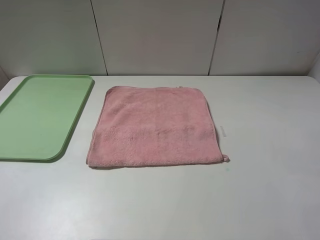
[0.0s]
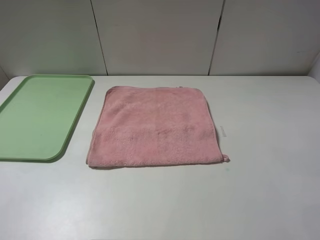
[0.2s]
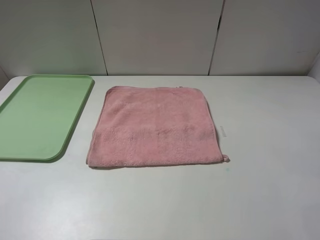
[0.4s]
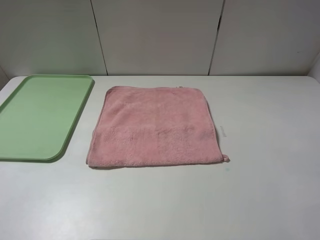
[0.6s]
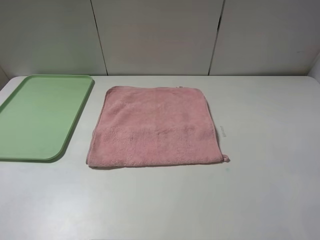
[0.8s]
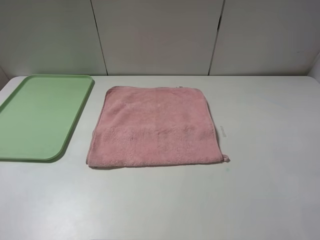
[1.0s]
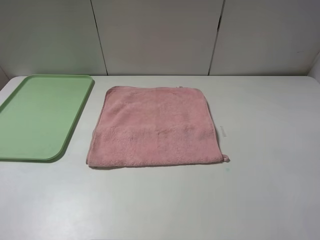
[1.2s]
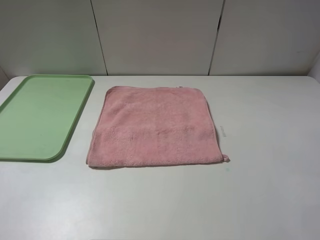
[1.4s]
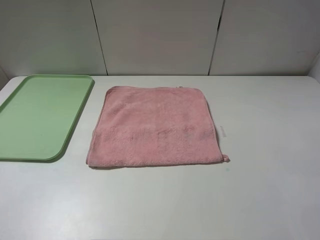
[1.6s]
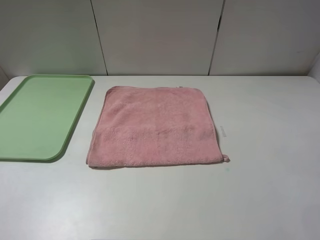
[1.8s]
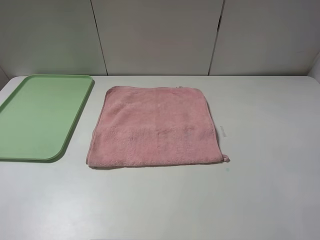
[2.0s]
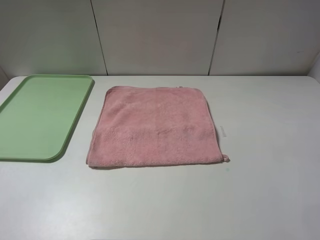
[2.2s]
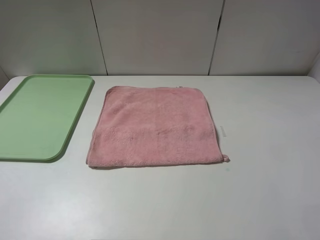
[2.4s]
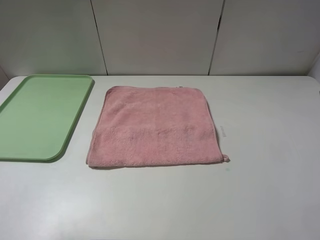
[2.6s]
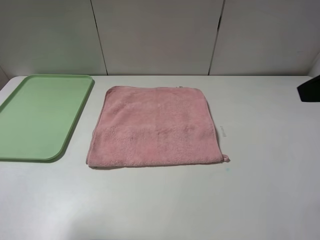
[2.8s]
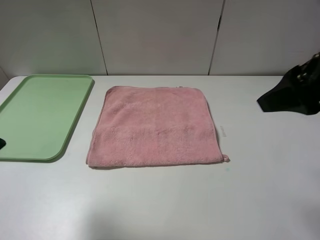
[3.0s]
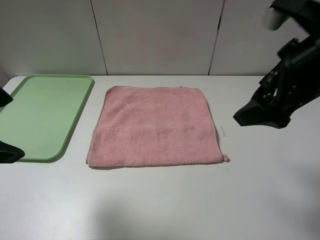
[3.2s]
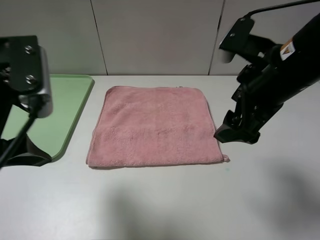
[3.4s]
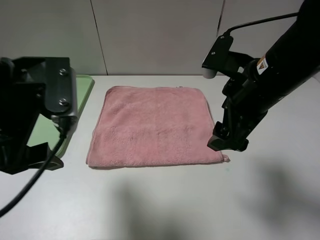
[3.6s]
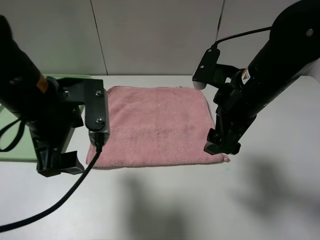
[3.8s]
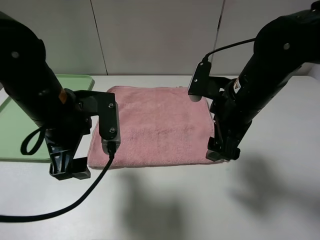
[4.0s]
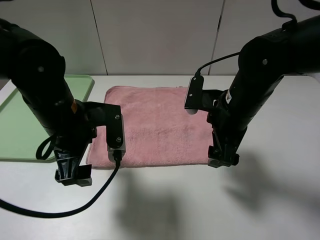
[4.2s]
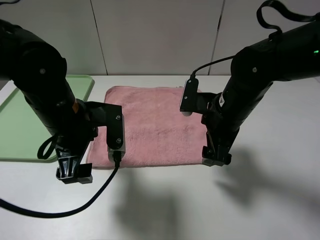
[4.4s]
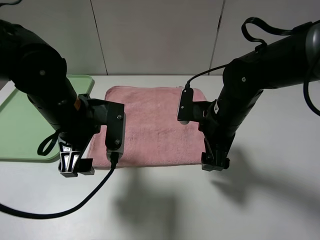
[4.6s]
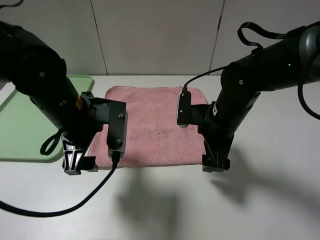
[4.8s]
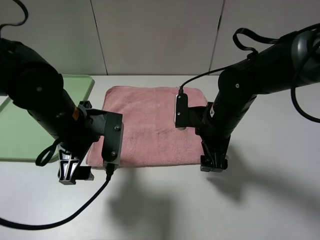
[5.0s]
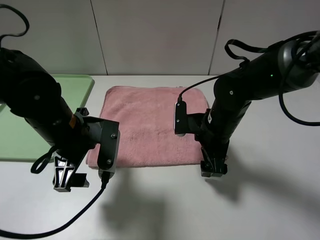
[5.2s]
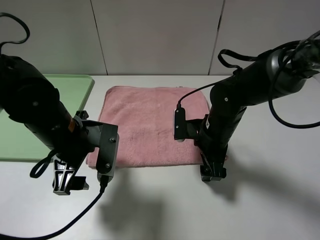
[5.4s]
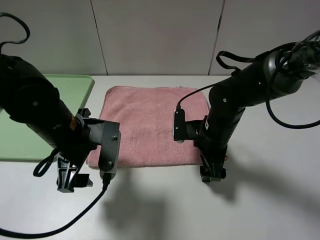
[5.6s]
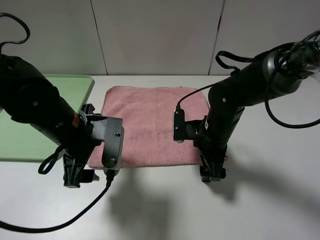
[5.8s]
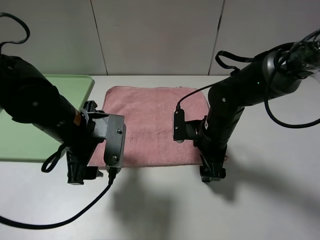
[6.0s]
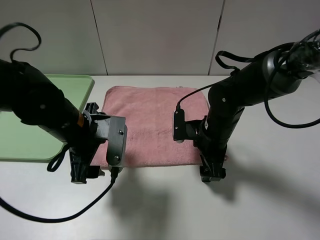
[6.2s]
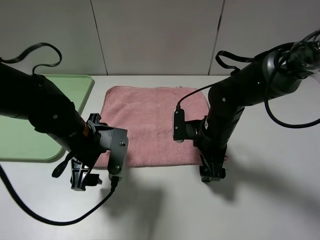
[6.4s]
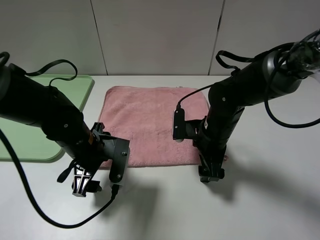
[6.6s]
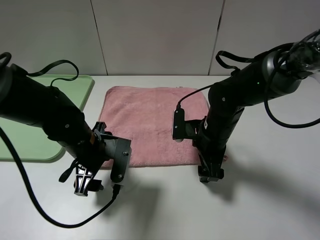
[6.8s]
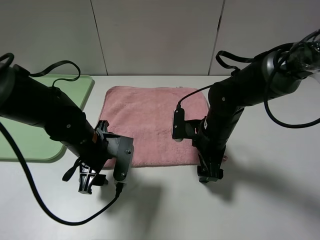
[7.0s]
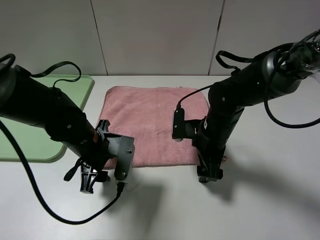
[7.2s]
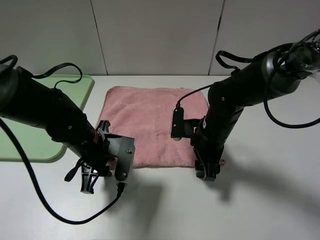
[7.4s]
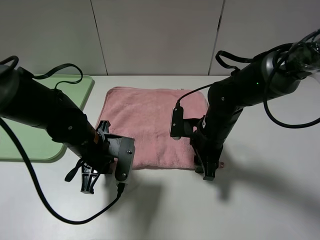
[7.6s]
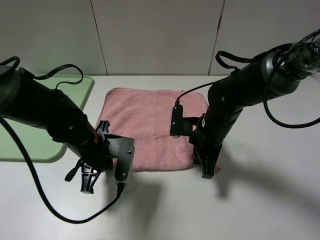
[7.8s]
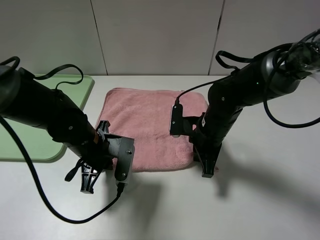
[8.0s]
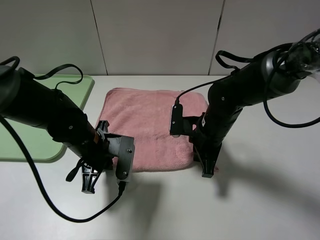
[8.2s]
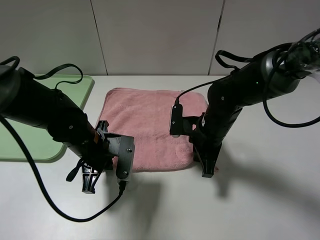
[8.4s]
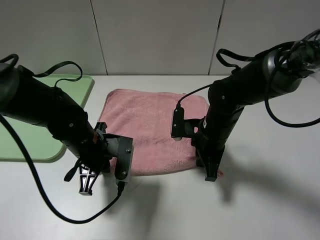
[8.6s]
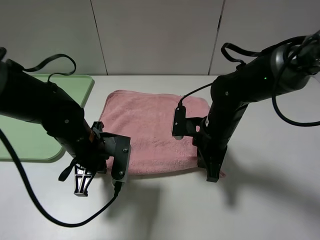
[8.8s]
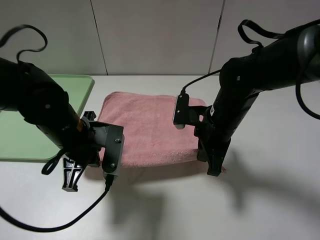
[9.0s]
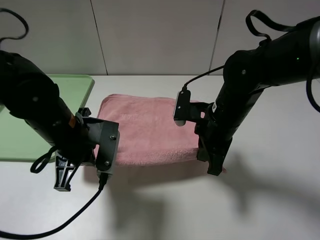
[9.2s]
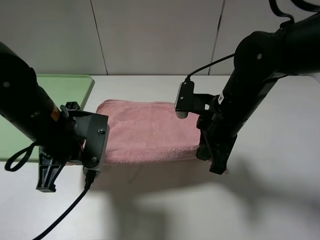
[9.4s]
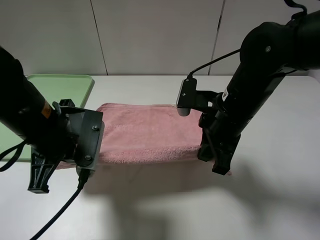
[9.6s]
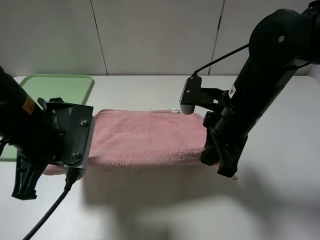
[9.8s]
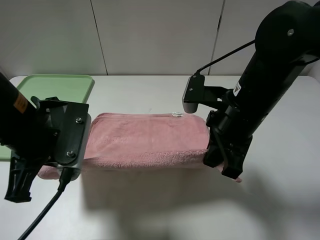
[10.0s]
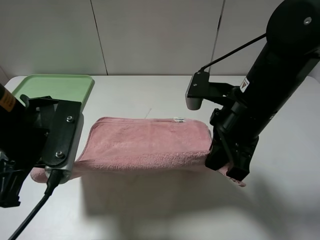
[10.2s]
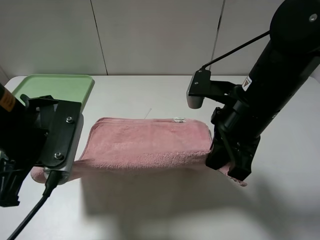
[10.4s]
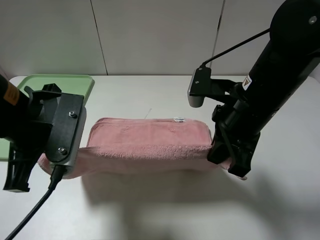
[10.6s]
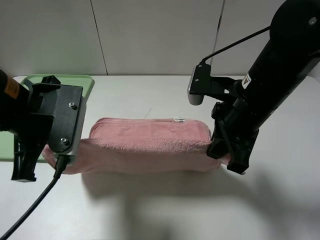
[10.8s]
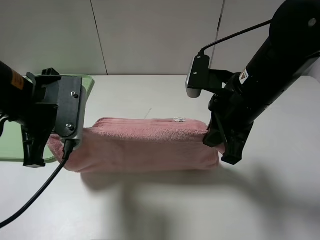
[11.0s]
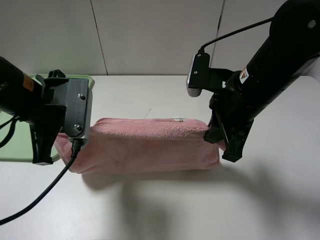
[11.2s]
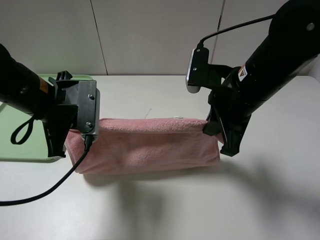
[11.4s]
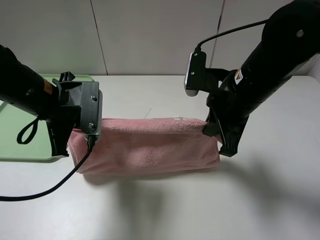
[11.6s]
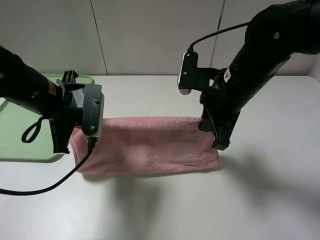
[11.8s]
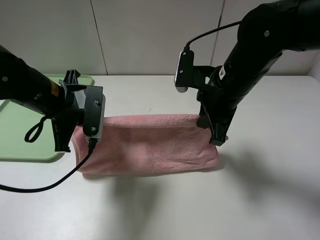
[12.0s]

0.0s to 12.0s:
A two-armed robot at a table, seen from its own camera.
0.0s to 1.6s: Both grippers stay about where they are.
1.6s to 3.0s: The left gripper heads forward, to the right and upward, covering about 15 cm. The right gripper is displaced forward by roughly 20 cm.
3.0s to 4.4s: The right gripper heads downward, to the left and forward, covering roughly 20 cm. The left gripper travels downward, to the right and forward by approximately 20 cm.
4.4s to 6.0s: The right gripper shifts approximately 5 cm downward.
6.0s to 7.6s: The right gripper closes up, while the left gripper travels downward by some 5 cm, and closes.
7.6s to 9.0s: Both grippers travel together upward, roughly 5 cm. The right gripper closes.
9.0s to 10.4s: Both grippers travel together upward and backward, some 10 cm.
10.4s to 12.0s: Both grippers travel together forward, some 10 cm.

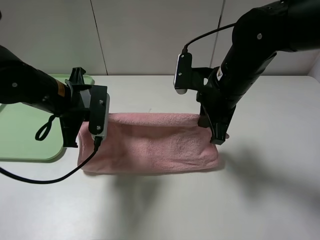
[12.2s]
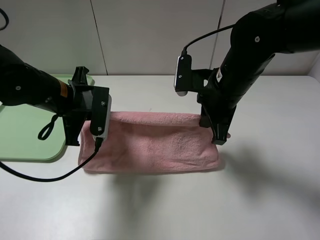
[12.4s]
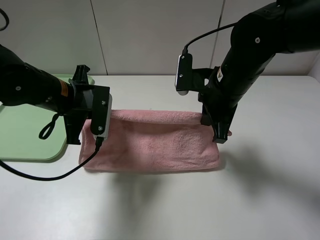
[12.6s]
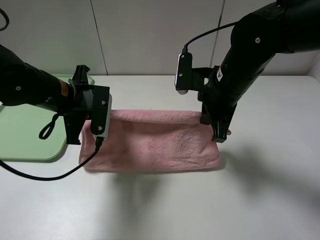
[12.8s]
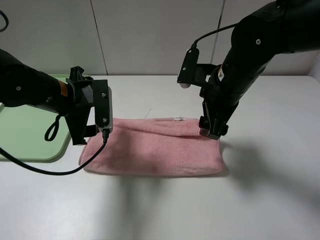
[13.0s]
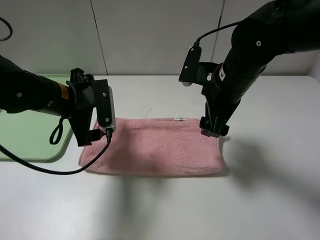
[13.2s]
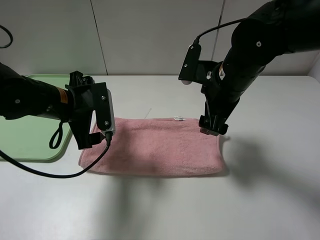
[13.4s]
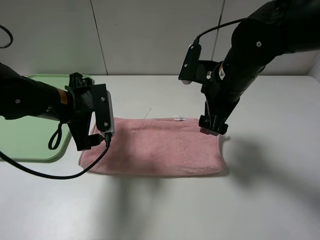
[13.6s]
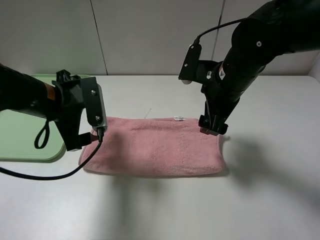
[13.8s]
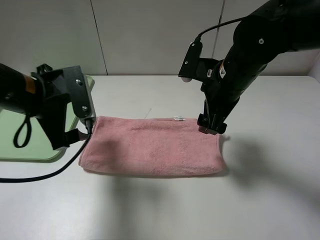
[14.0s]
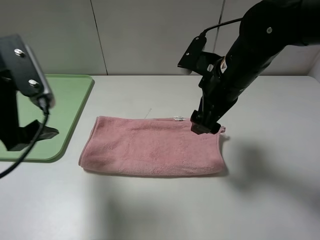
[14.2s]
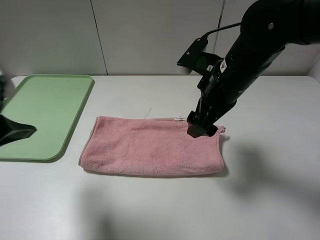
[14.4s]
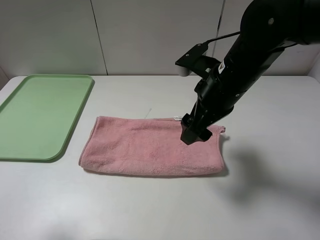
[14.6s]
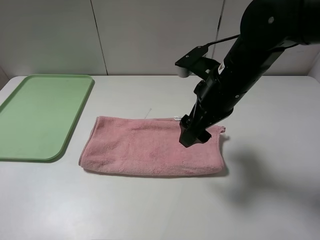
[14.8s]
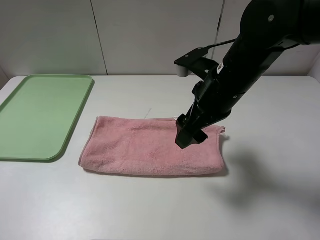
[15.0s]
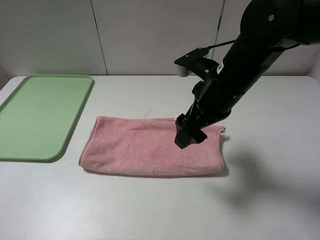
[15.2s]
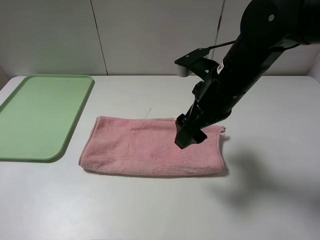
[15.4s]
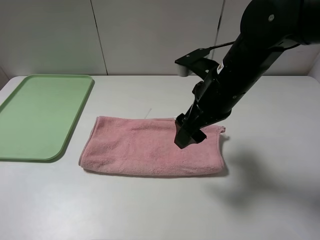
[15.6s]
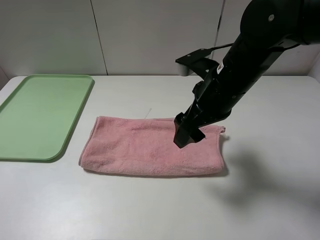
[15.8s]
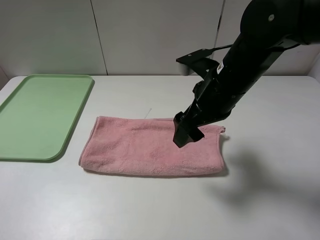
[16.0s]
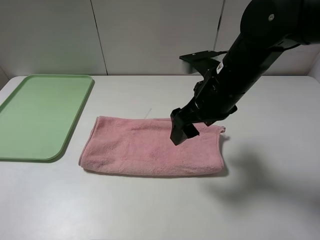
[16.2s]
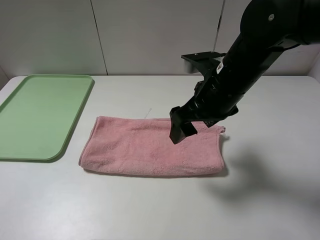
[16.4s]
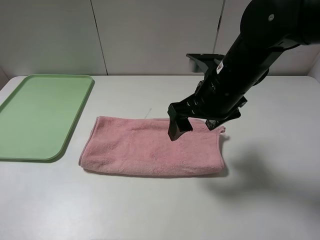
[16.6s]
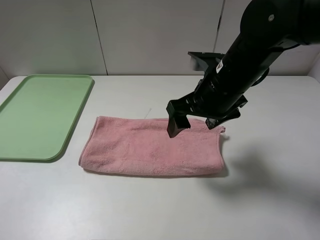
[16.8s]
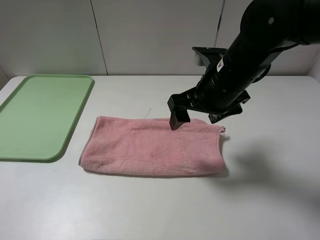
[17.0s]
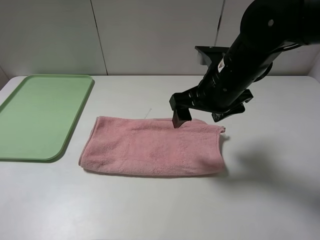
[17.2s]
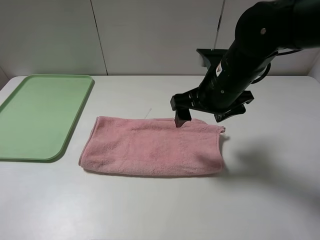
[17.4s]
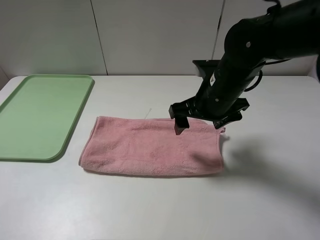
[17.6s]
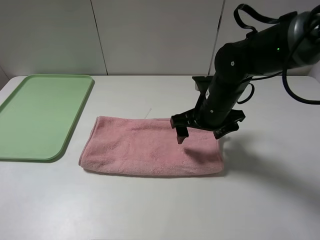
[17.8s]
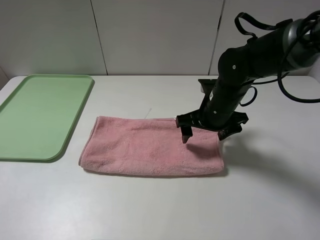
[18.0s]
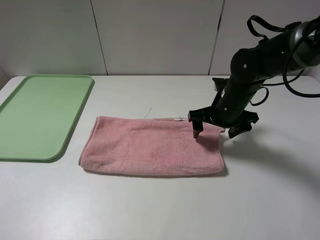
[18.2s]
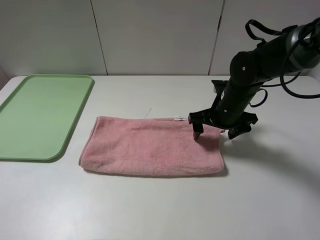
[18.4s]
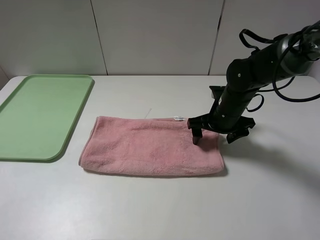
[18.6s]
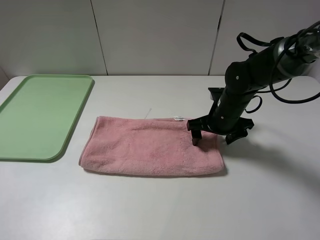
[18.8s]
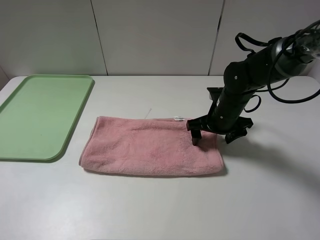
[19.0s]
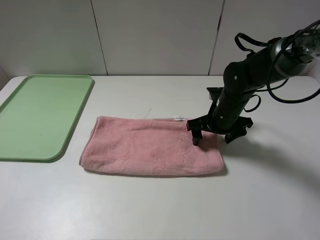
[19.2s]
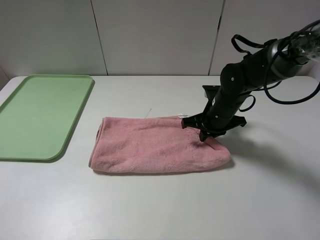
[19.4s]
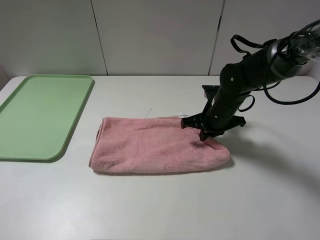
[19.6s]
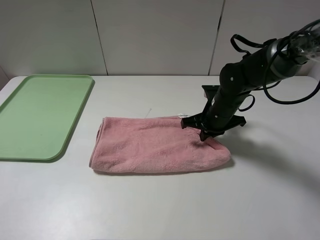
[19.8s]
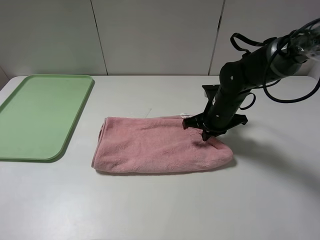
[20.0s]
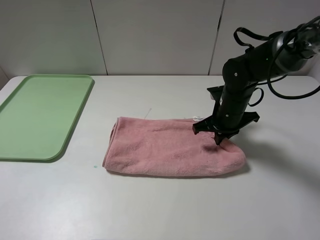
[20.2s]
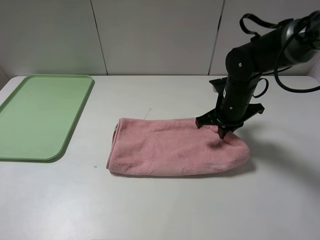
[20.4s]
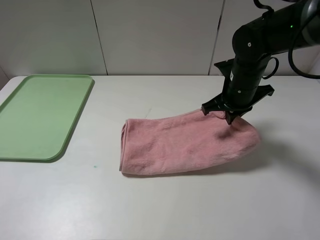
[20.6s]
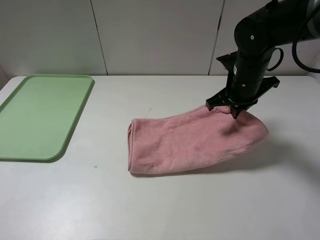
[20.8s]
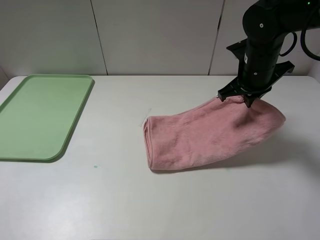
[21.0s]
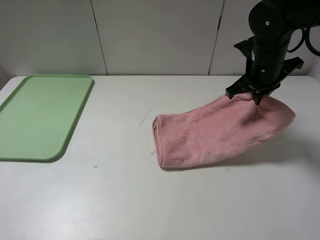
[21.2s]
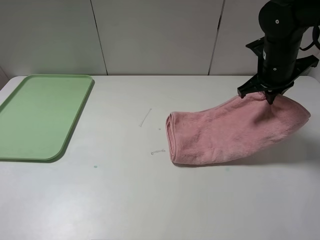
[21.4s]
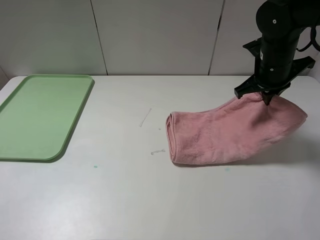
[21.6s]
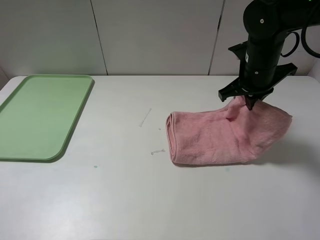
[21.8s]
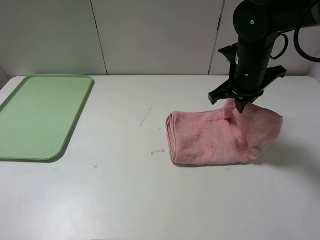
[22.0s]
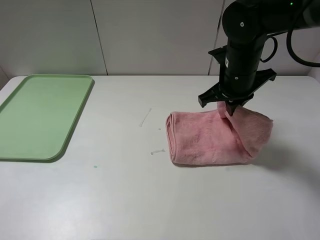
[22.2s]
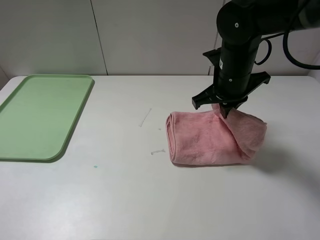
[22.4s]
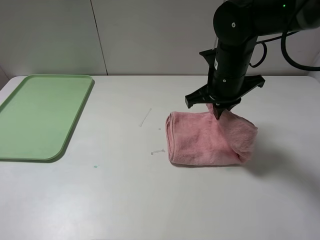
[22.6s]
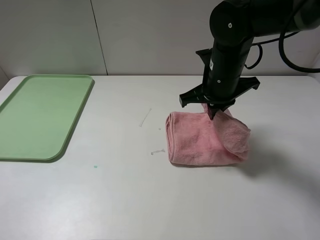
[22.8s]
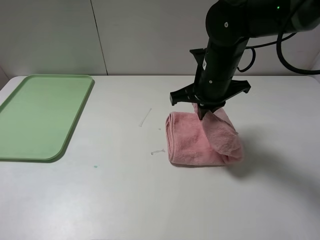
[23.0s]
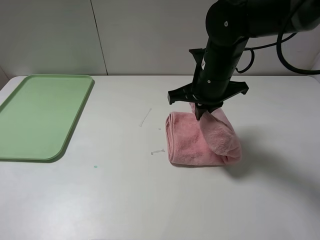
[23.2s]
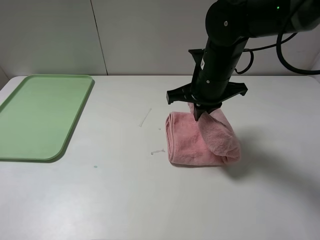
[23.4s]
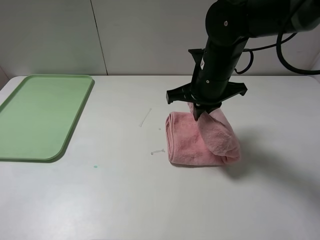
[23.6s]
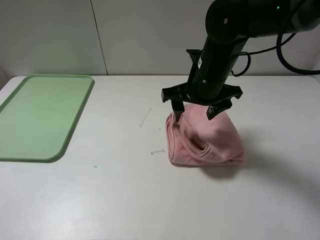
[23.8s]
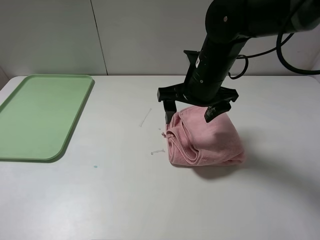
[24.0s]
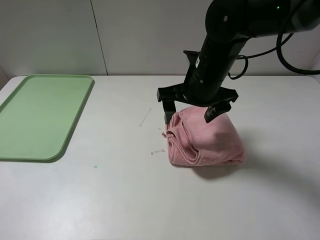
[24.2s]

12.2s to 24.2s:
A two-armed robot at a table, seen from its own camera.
Step, 13.4s to 23.8s: Fold the pink towel from right to left with right gripper.
12.2s to 13.8s: The left gripper opens, while the right gripper opens.
13.8s to 15.2s: The left gripper goes some 30 cm backward, to the left and upward.
16.6s to 18.2s: The right gripper heads downward, forward and to the right, covering roughly 15 cm.
18.2s to 19.8s: The right gripper closes its fingers.
19.8s to 21.2s: The right gripper shifts approximately 15 cm upward and to the right.
21.2s to 22.6s: The right gripper shifts approximately 10 cm to the left.
22.6s to 24.2s: The right gripper opens up.
